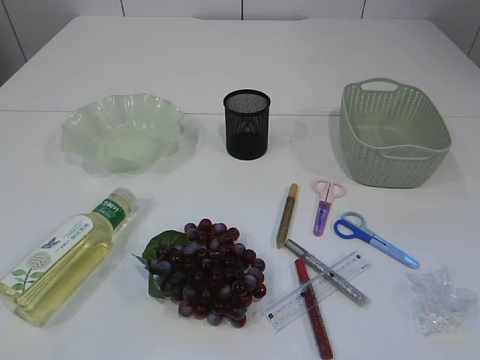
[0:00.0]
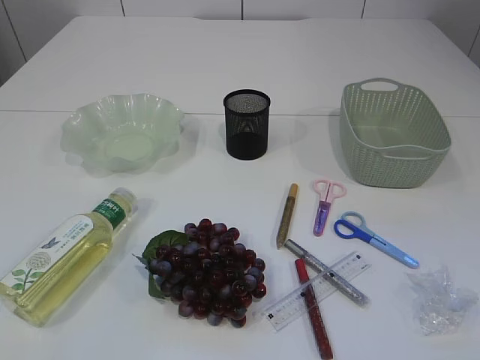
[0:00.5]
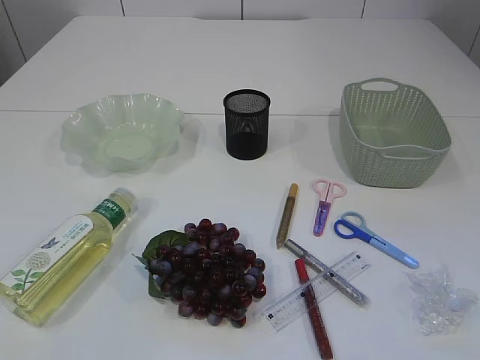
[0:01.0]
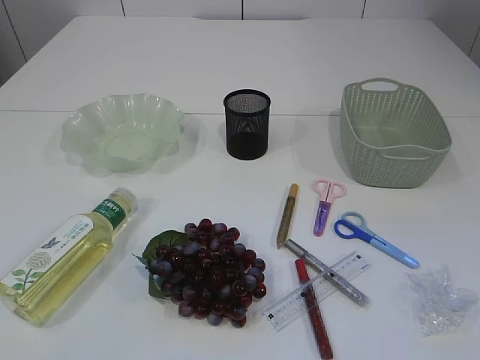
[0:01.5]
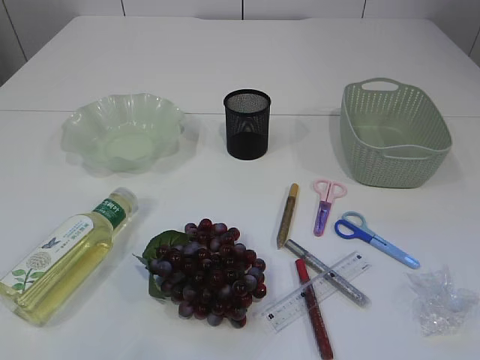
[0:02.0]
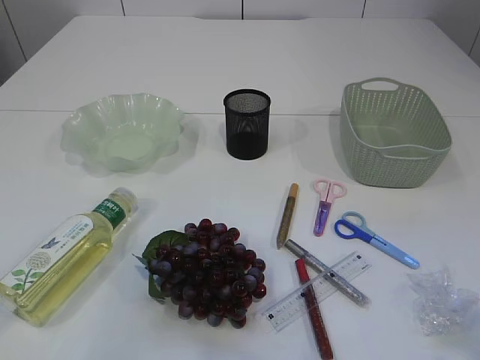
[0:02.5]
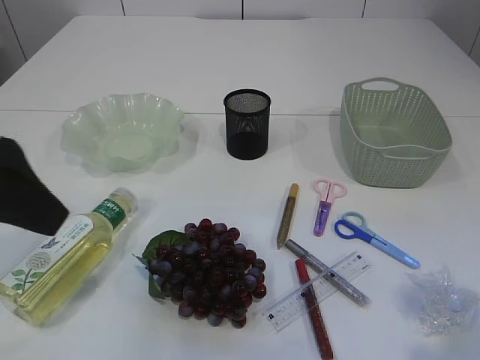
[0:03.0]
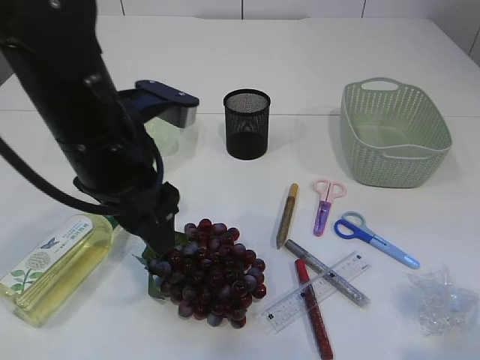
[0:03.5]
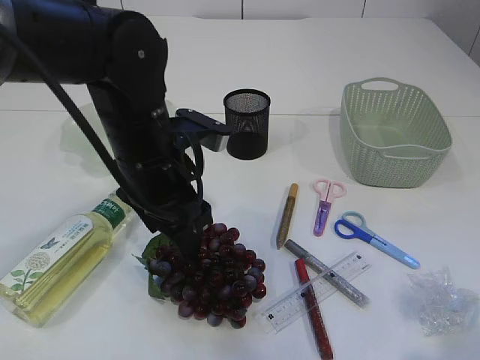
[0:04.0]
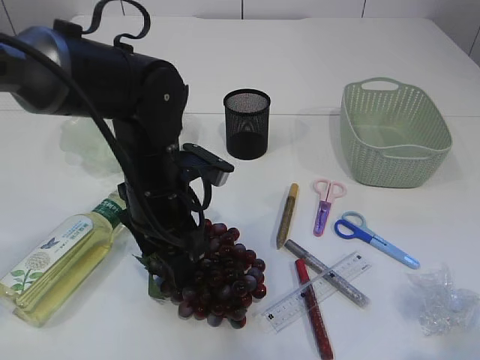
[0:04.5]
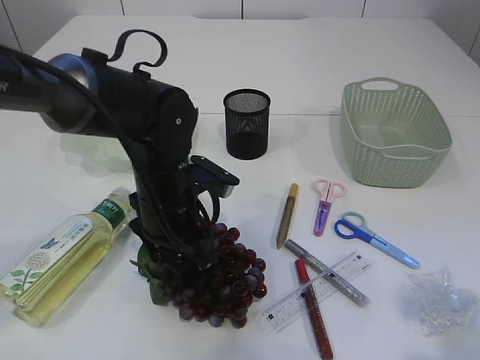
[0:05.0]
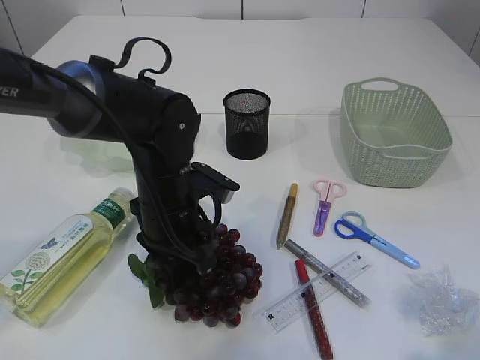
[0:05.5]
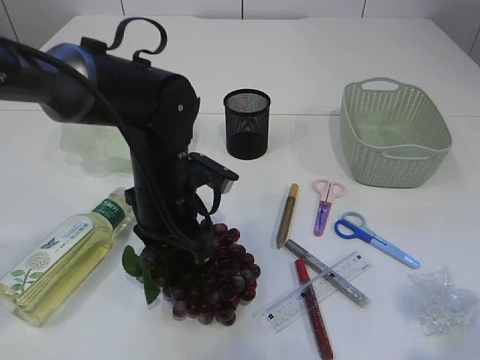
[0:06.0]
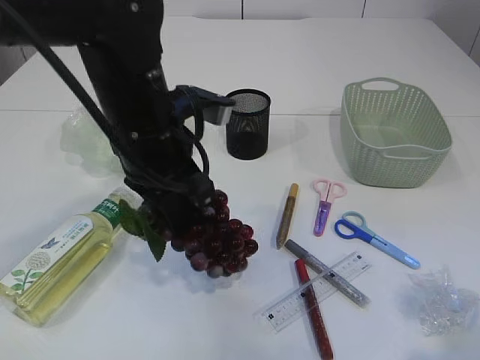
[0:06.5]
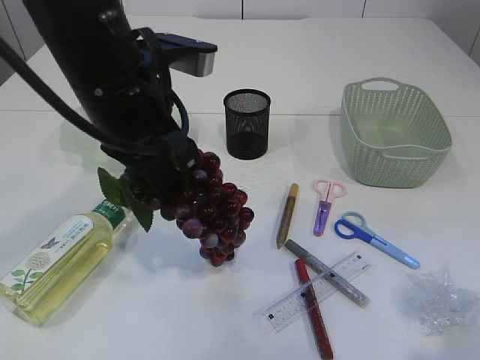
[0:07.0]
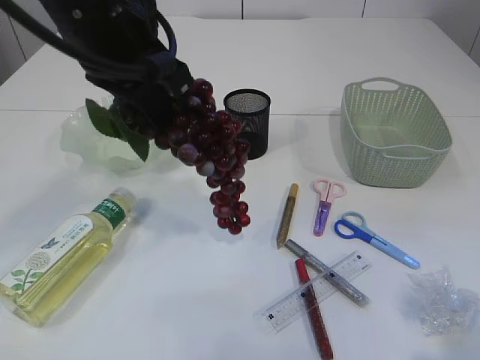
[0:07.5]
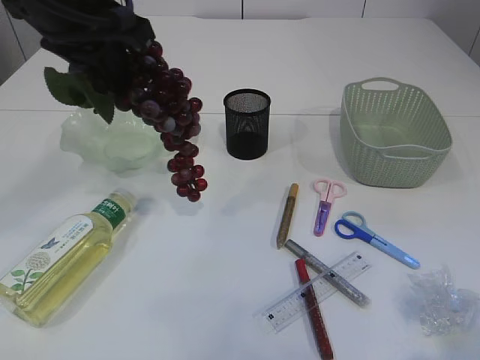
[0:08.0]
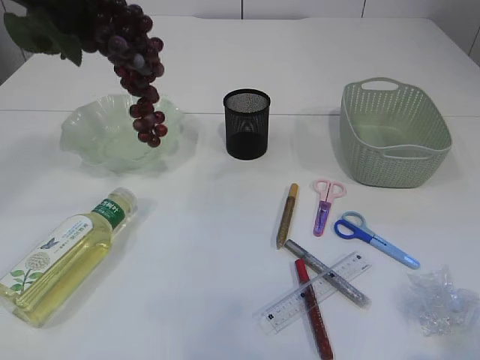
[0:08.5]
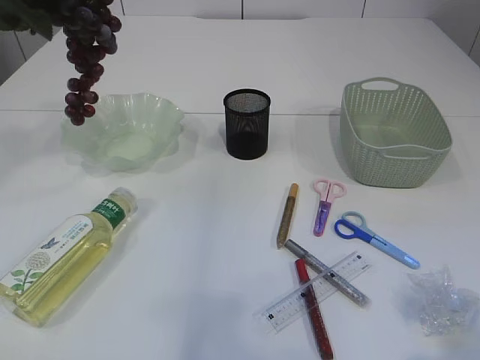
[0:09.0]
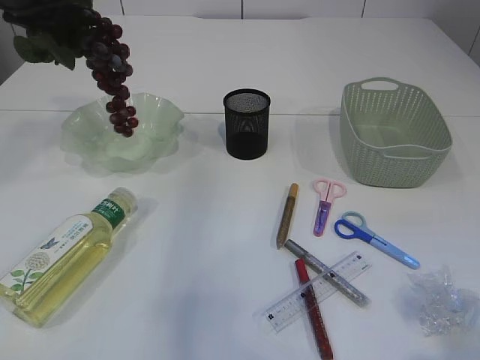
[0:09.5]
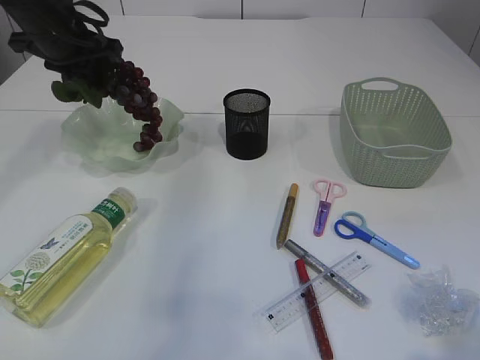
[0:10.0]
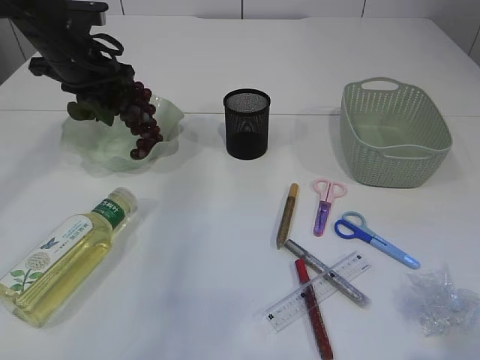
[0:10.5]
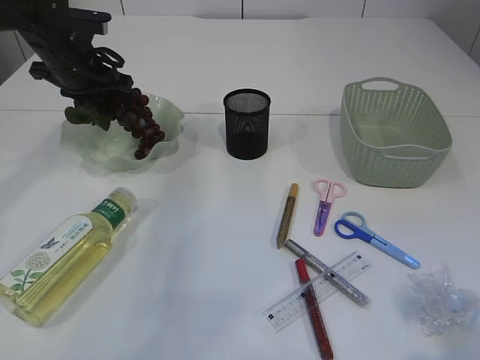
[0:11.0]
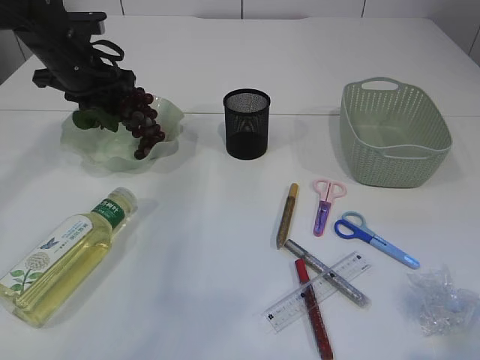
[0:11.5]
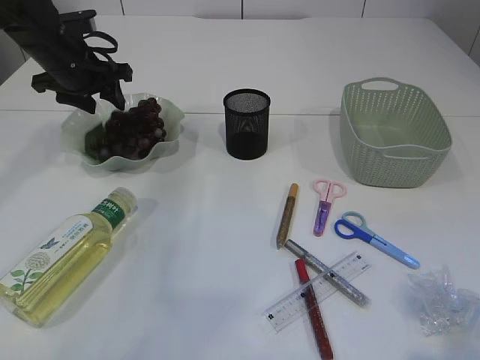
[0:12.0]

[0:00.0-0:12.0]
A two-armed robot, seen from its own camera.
Step, 0:00.0 to 0:07.5: Pick up the grapes.
0:02.0 to 0:04.0: The right gripper is displaced forward and to the left by roughly 10 cm, while the left gripper travels forward, to the right and downward by about 35 cm.
0:04.0 to 0:06.0: The left gripper heads downward, covering some 5 cm, and closes its fingers.
0:06.0 to 0:08.0: The left gripper moves upward, some 20 cm.
0:08.0 to 0:10.0: The left gripper heads forward, to the left and downward, covering approximately 20 cm.
0:10.0 to 0:12.0: The left gripper heads downward, covering about 5 cm, and opens.

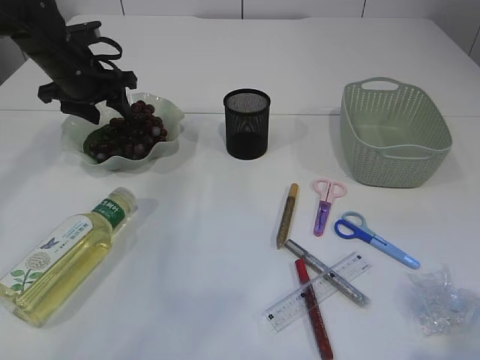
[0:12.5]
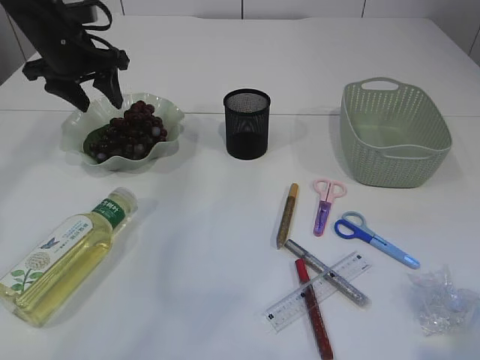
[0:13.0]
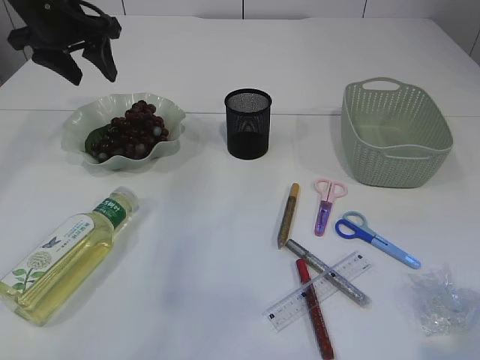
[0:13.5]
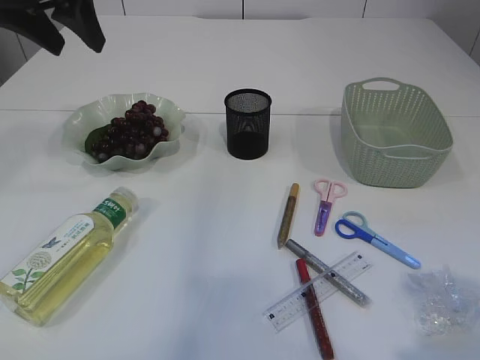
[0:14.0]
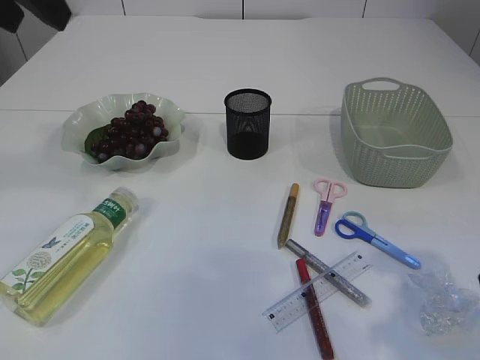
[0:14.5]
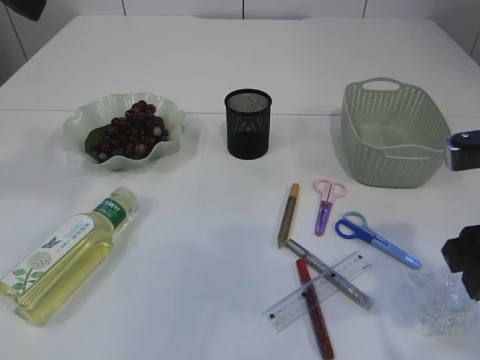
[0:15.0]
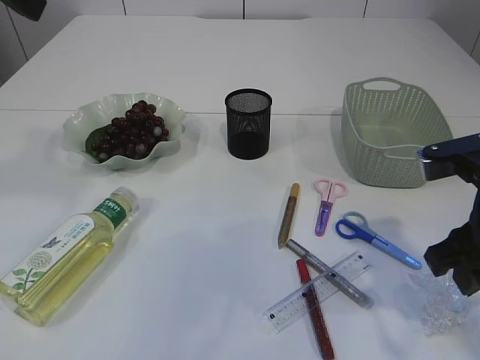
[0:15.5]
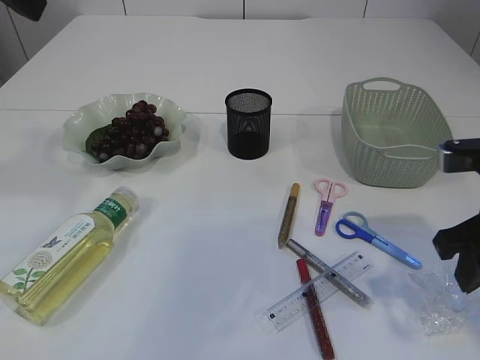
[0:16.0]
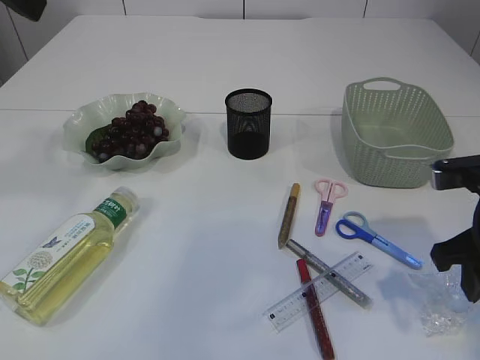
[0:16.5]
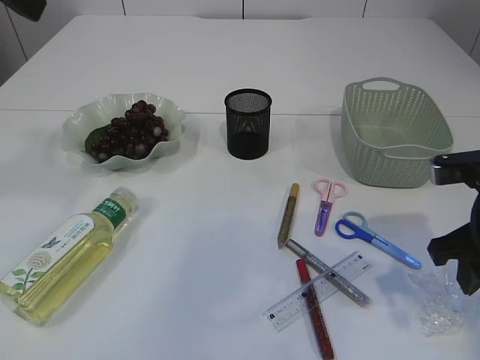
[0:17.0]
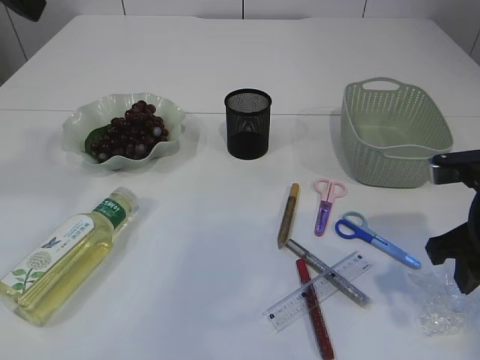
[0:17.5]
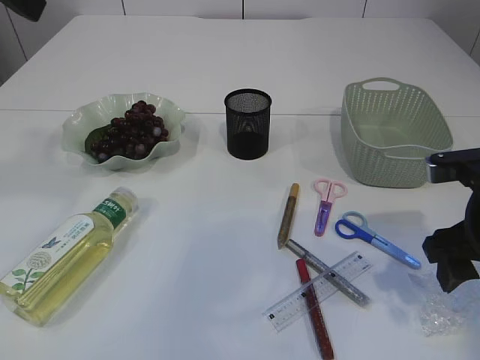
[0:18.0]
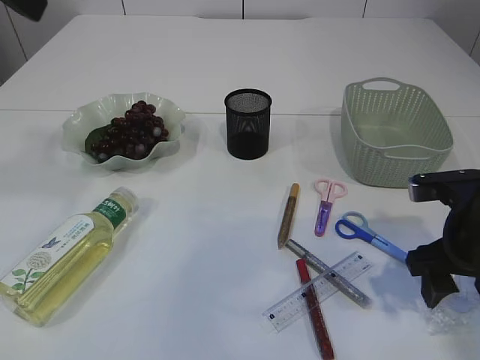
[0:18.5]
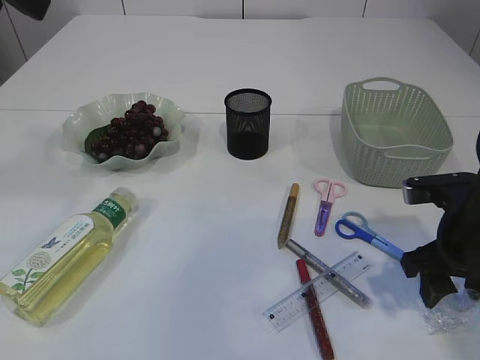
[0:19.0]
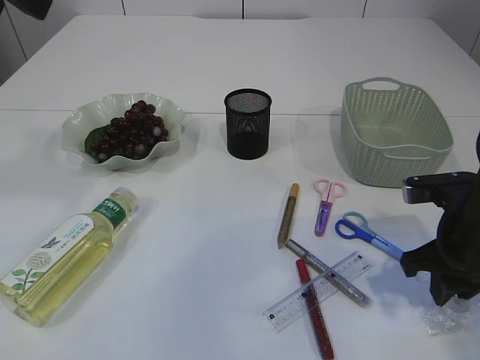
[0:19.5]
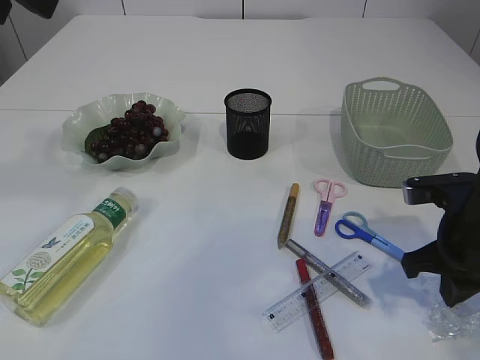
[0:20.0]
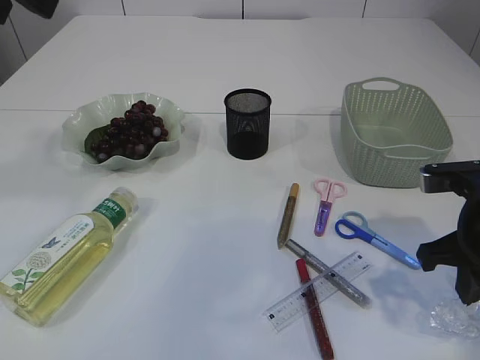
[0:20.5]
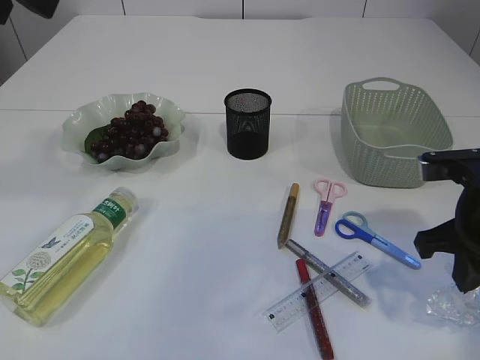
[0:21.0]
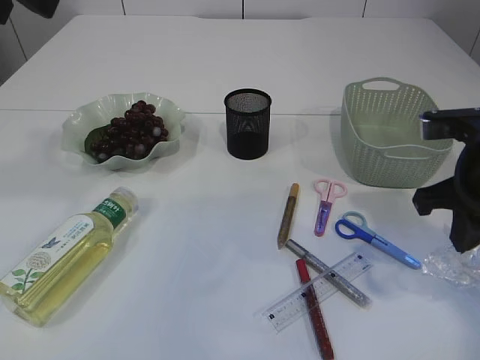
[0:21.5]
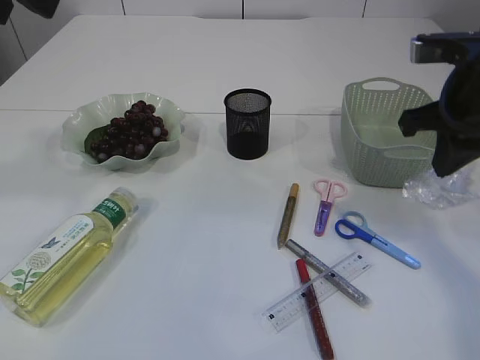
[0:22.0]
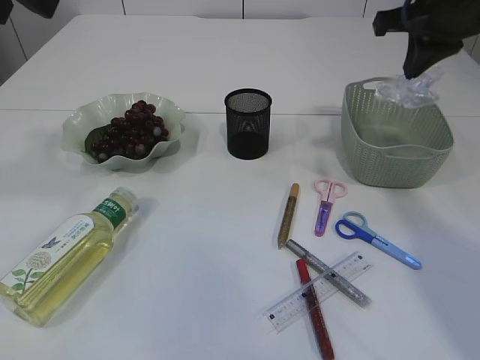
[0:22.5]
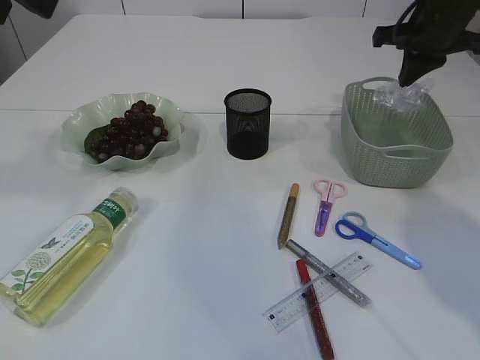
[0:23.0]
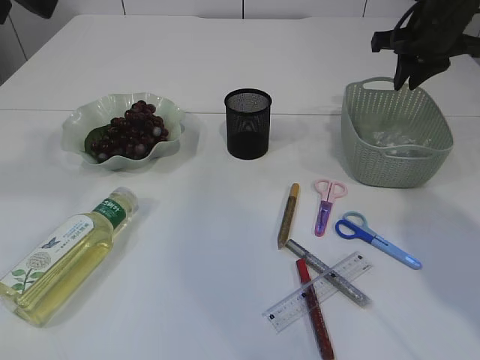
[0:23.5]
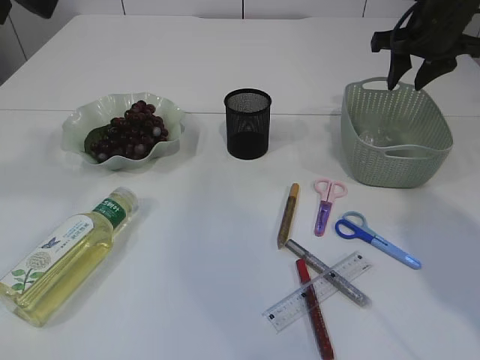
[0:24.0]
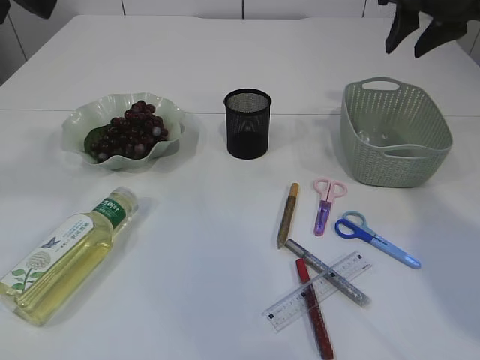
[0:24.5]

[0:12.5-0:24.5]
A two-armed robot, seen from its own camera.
Step, 0:14.0 to 0:21.5: Pick up the plastic.
Step, 0:22.0 to 0:24.0: Place the plastic in the basket.
0:12.5 to 0:14.5: The right gripper shifts about 10 cm forward; the left gripper is displaced upward and backward by roughly 30 cm.
0:14.5 to 0:16.5: The right gripper goes roughly 10 cm forward and downward, and closes its fingers.
0:16.5 to 0:18.5: The right gripper opens its fingers.
0:18.5 to 0:20.5: The right gripper closes up.
0:20.5 to 0:22.5: The right gripper heads forward and upward, covering about 20 cm.
0:22.5 to 0:24.5: The right gripper opens.

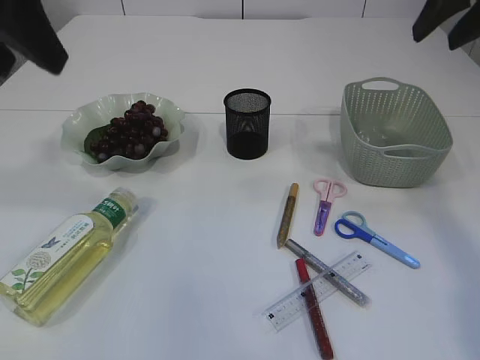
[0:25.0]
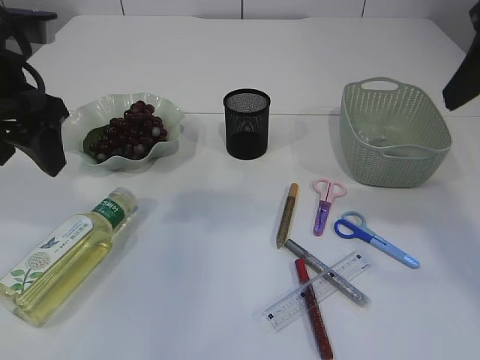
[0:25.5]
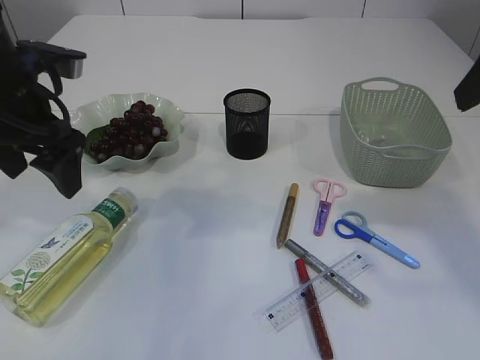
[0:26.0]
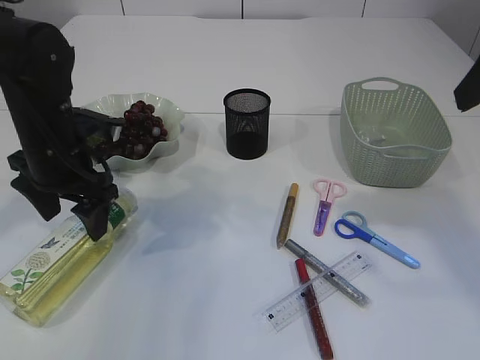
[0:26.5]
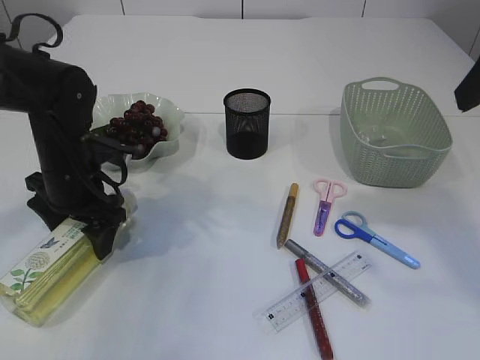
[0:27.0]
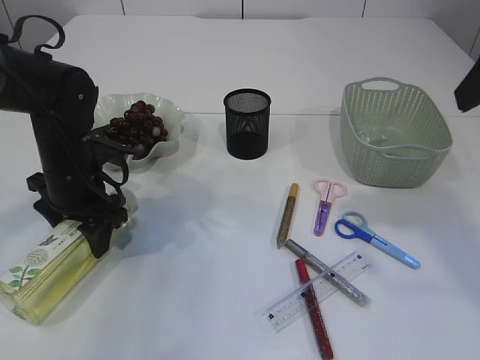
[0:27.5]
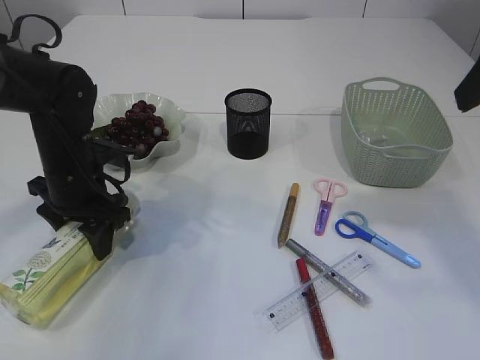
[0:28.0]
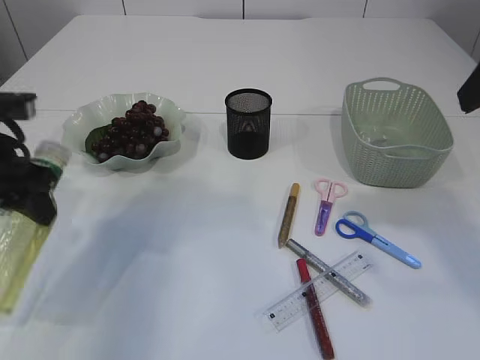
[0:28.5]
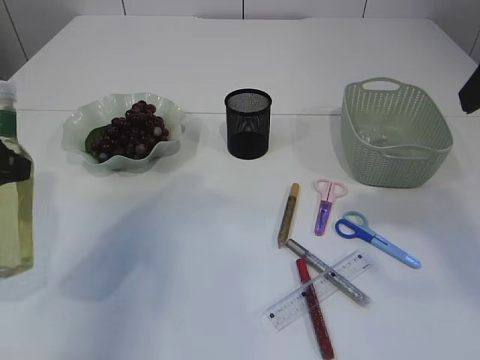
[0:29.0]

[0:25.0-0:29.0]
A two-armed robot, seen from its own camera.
Step, 0:25.0 to 0:28.5: Pick up the bottle with the left arm.
0:25.0 to 0:27.0: The right gripper travels backward by about 10 cm, while the left gripper shifts approximately 25 cm downward.
0:27.0 to 0:29.0: The left gripper goes roughly 20 cm upward, backward and to the left.
